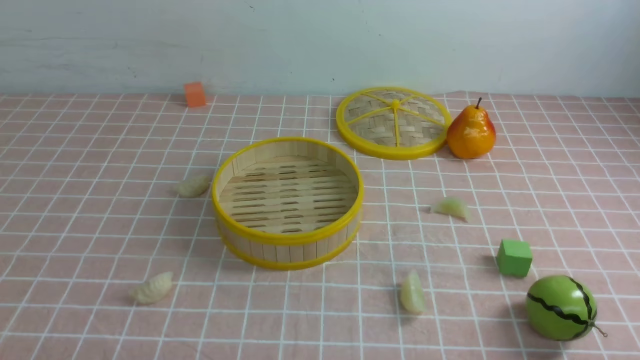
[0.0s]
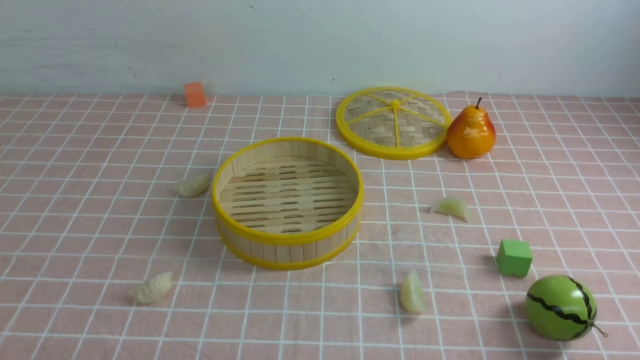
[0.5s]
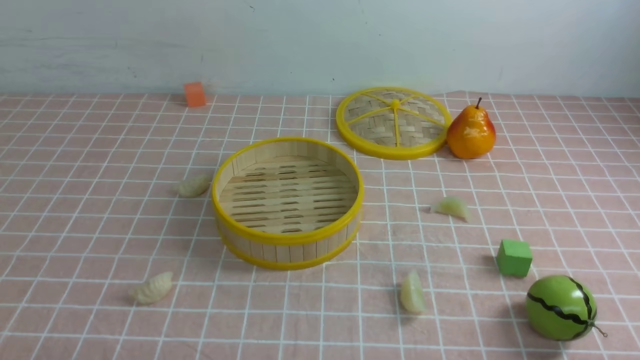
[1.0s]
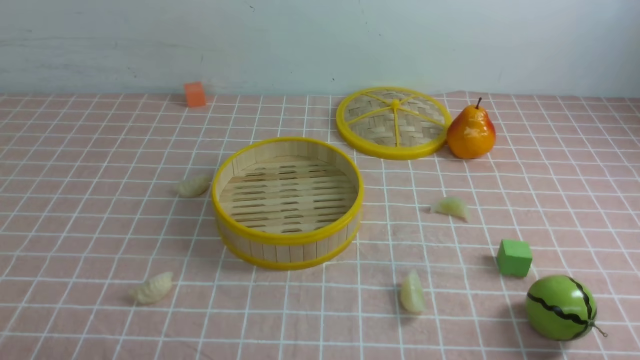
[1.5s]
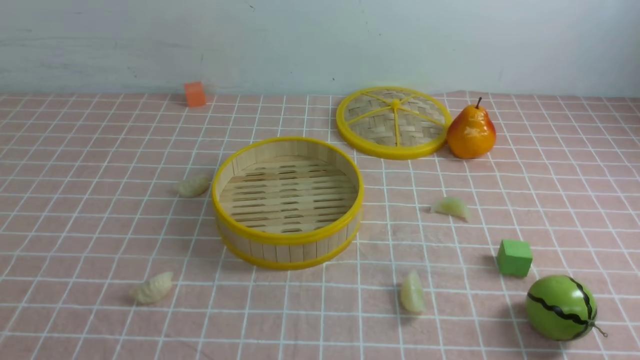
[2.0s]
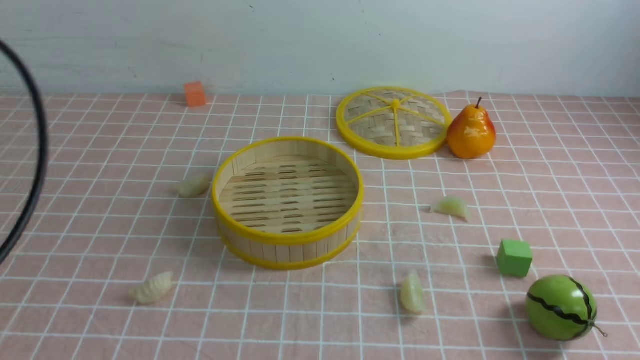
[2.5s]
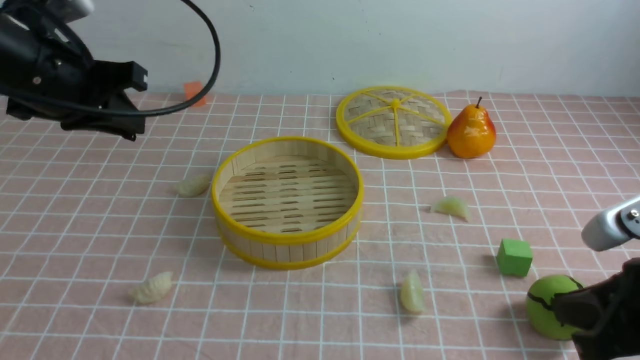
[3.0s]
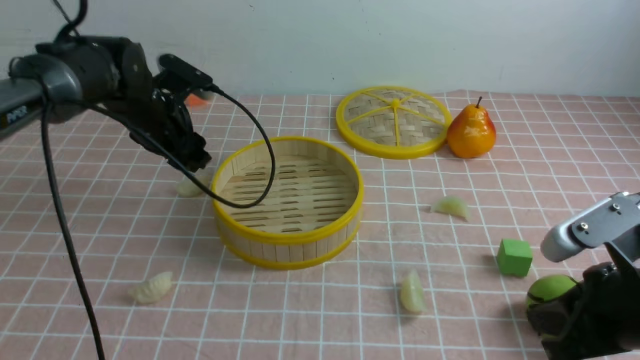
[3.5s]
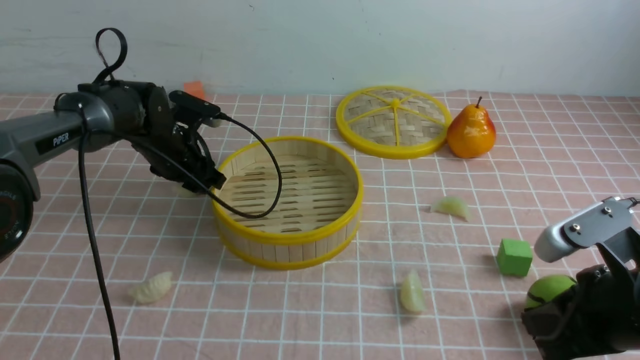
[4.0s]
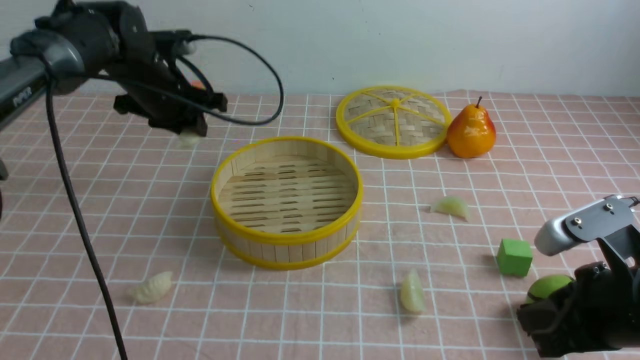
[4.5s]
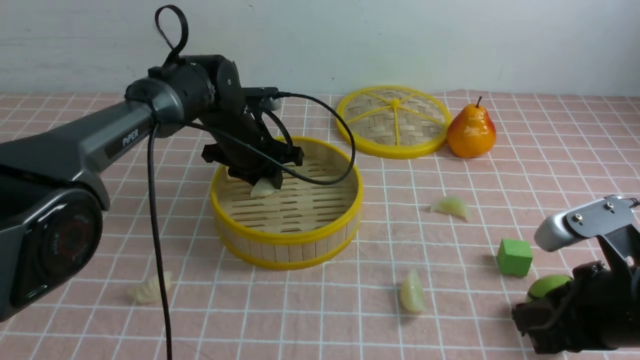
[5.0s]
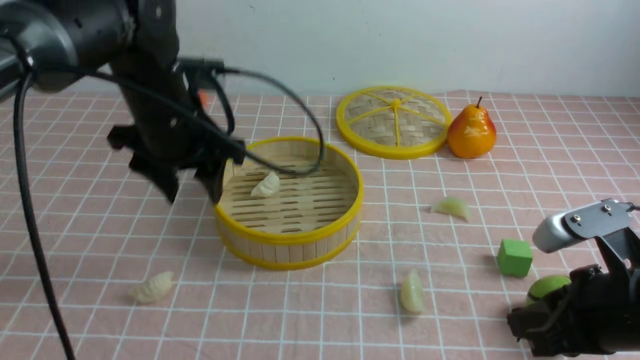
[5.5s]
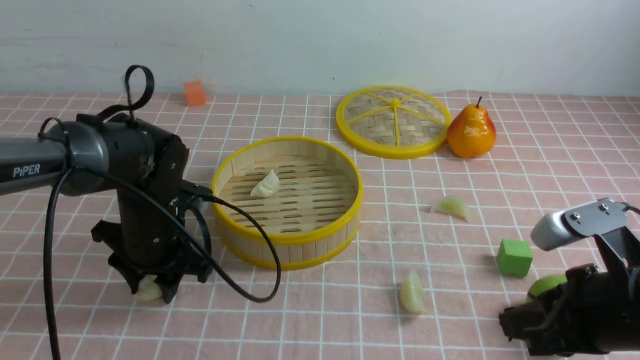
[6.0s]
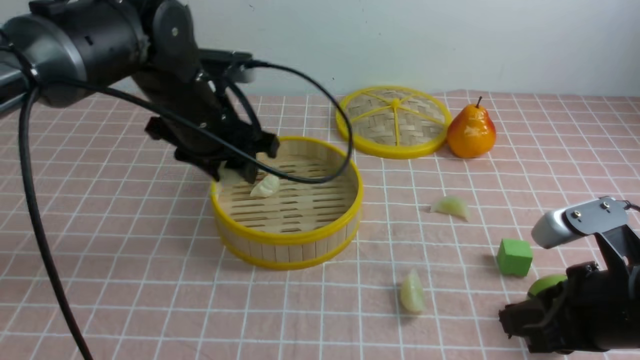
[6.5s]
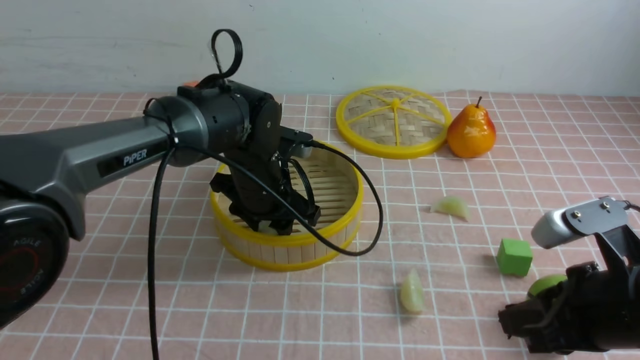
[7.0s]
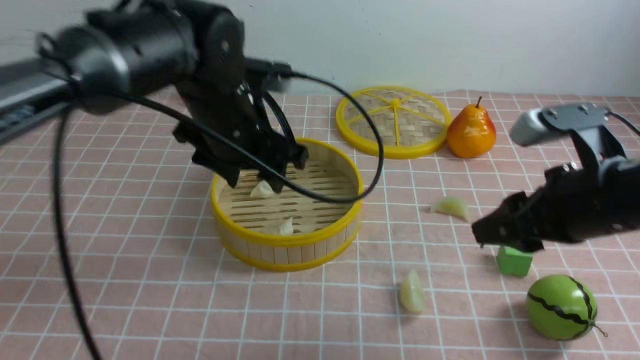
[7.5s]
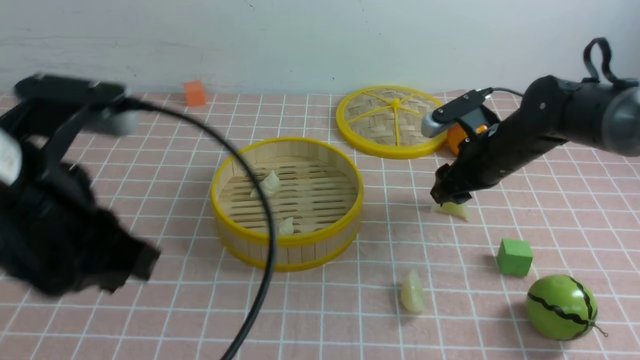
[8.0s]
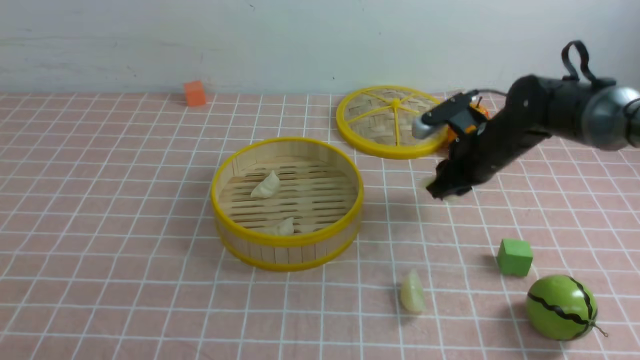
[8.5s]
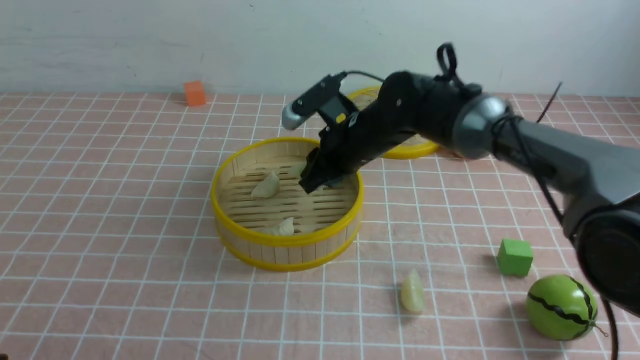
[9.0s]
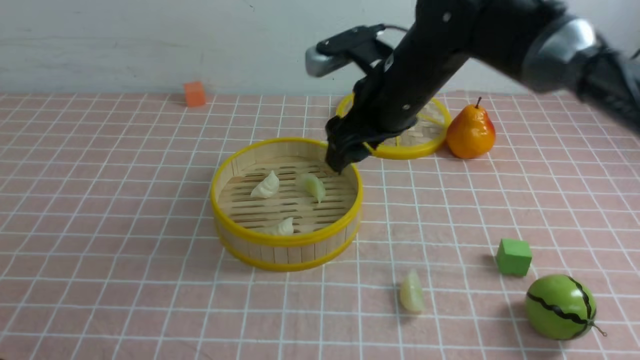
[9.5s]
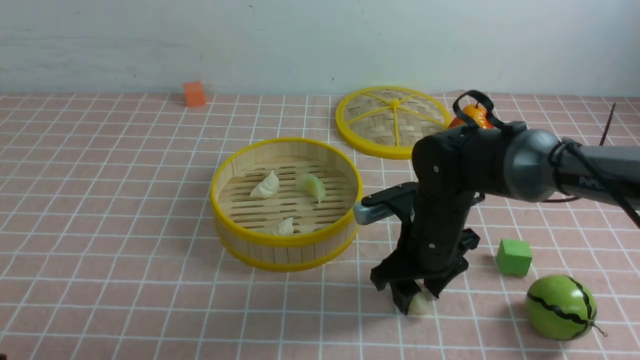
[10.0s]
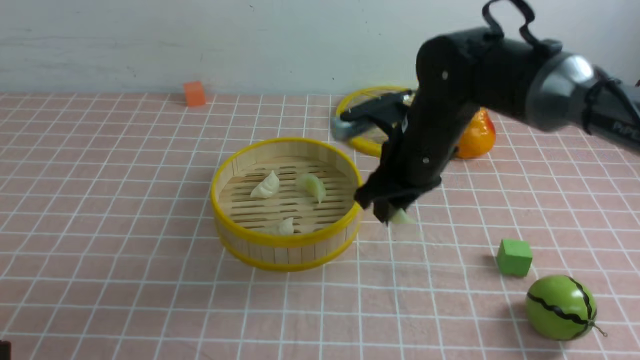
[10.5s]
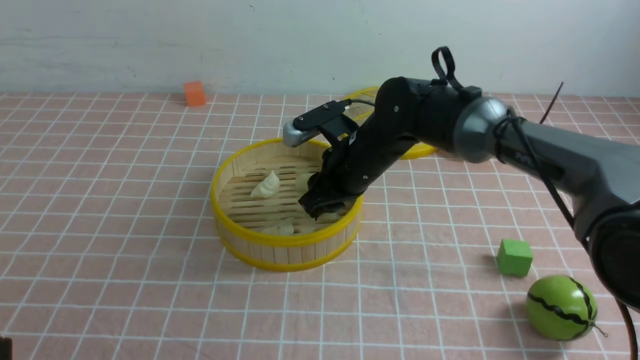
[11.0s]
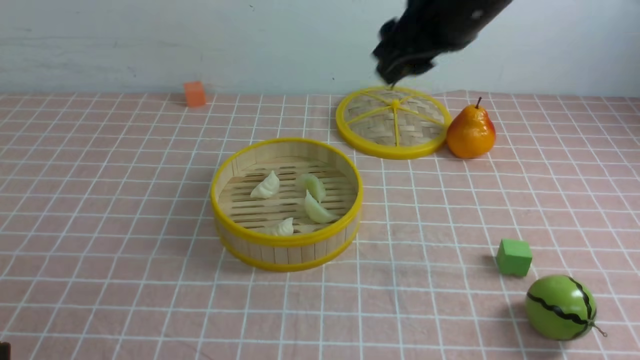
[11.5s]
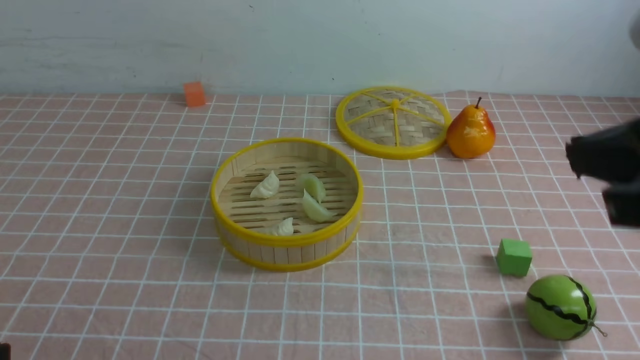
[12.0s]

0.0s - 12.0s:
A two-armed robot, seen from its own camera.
Task of the whole recording: put the dumplings into the steamer on the table with the pink tablecloth.
Step, 0.0s - 4.0s: use the left arm to grab a dumpling.
Step, 4.5s - 5.0s: use the left arm to put the dumpling into the steamer.
Step, 5.5s - 6.0s: use the left arm to grab a dumpling.
Step, 6.5s - 7.0s: use the left arm to put the dumpling into the steamer.
Step, 7.5s - 8.0s: use the right arm to grab a dumpling.
Step, 8.5s - 9.0s: use the right arm to put the dumpling into the steamer.
Step, 9.5s - 10.0s: use the right arm to grab a dumpling.
Step, 10.5s - 11.0s: use the right arm to put the dumpling into the steamer.
2.0s - 4.0s: The right gripper travels forward by roughly 15 cm; the left gripper heads forward, covering approximately 40 cm, and opens up.
4.0s - 6.0s: The left gripper travels backward by some 15 cm, and closes, then reopens.
6.0s - 8.0s: The right gripper heads forward, covering roughly 20 cm, and opens its fingers. The left gripper goes up and down, roughly 20 cm each way, reversing 2 times, and closes.
8.0s - 10.0s: The left gripper travels backward, downward and to the left by about 20 cm; the right gripper is displaced to the left and backward by roughly 10 cm, and closes, then opens again.
10.0s - 12.0s: The right gripper shifts approximately 30 cm upward, backward and to the right, and closes up.

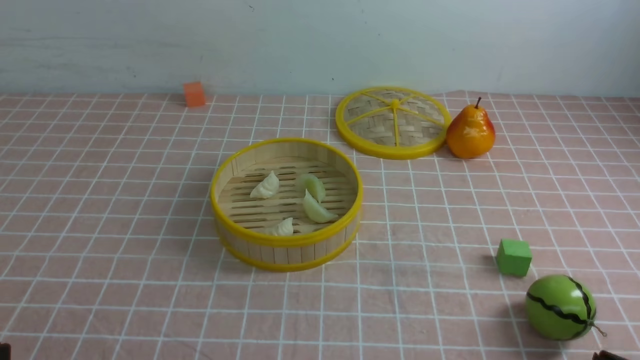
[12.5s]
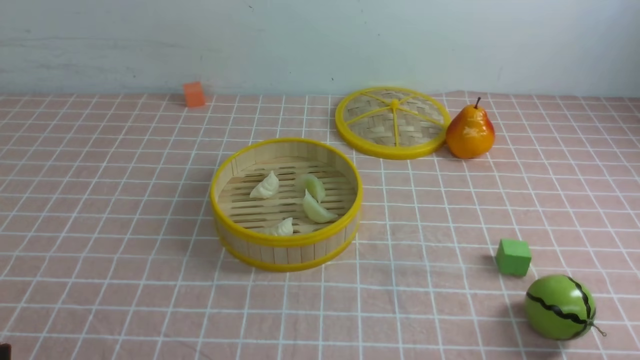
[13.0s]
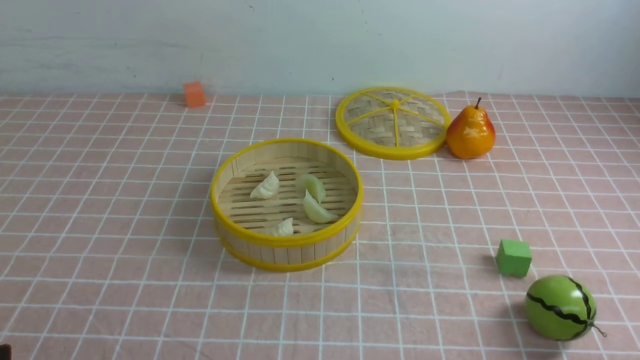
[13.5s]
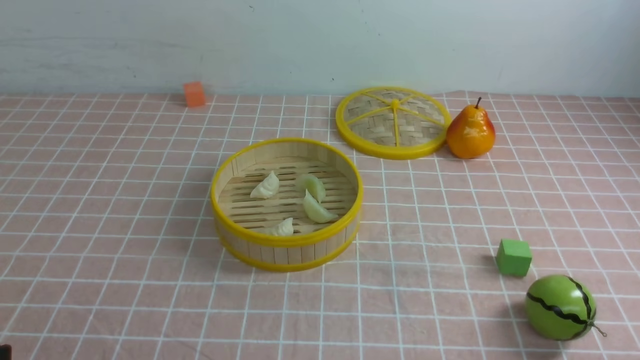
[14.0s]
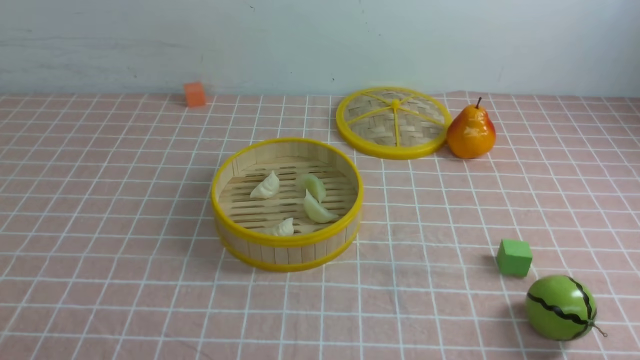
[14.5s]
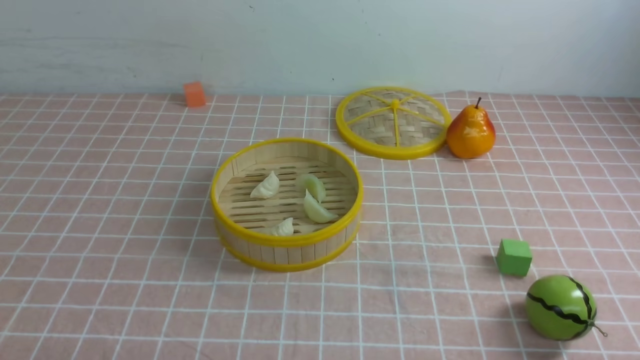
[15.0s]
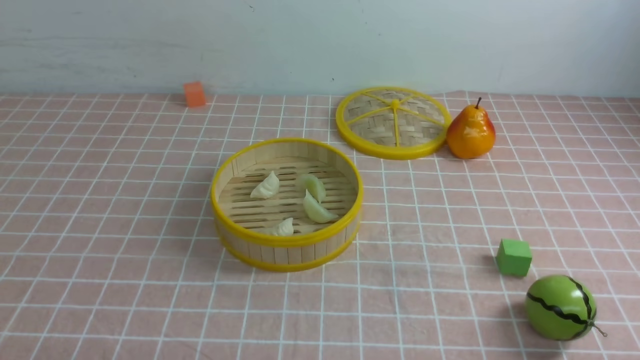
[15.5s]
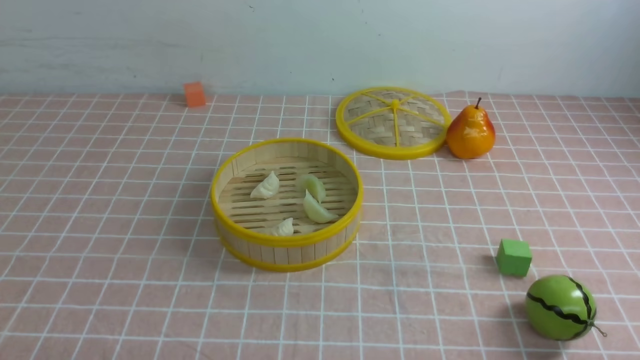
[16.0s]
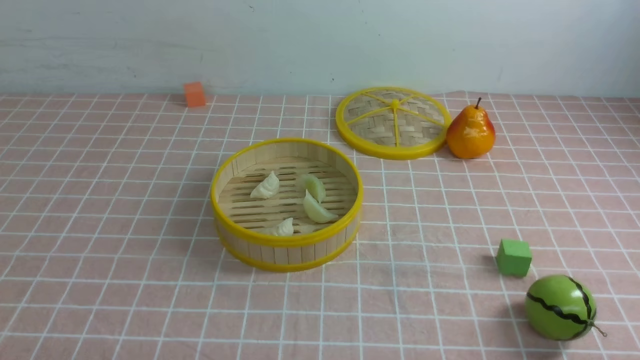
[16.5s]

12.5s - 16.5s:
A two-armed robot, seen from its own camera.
Task of the whole recording: put the dumplings into the steamer on the table with the pink tablecloth.
12.5s - 14.5s: The right gripper is displaced downward by approximately 5 cm.
